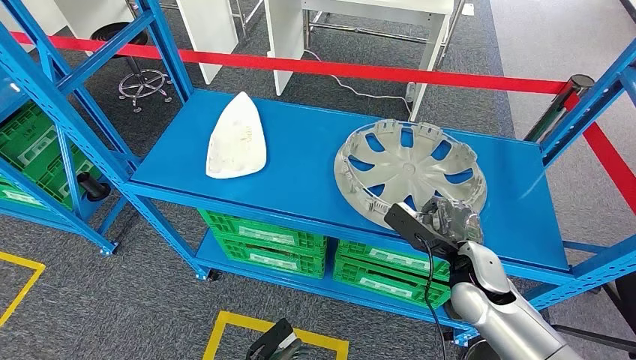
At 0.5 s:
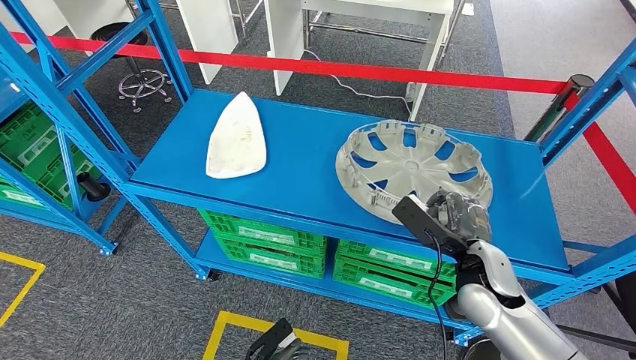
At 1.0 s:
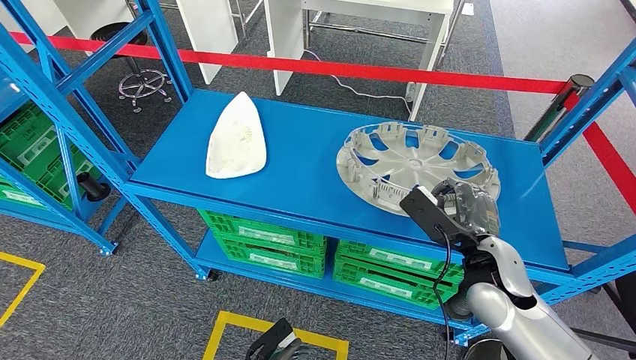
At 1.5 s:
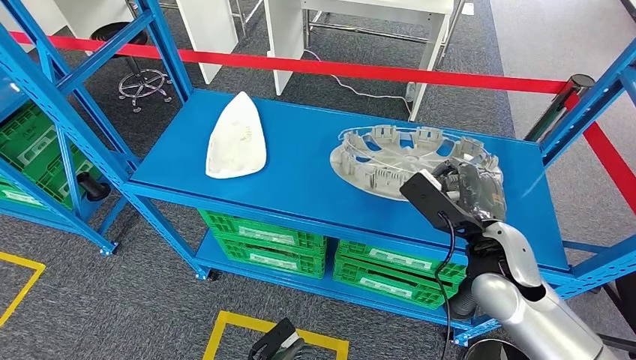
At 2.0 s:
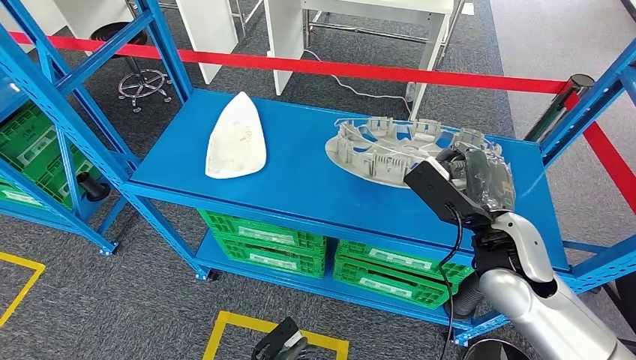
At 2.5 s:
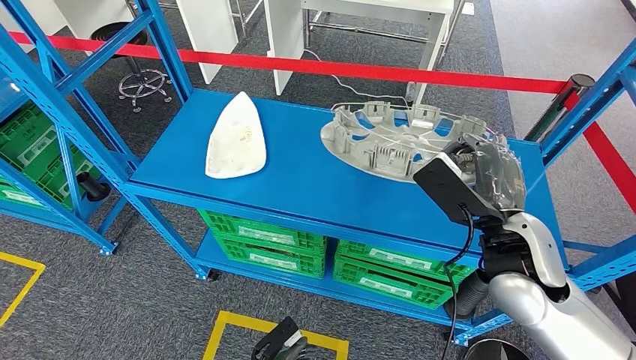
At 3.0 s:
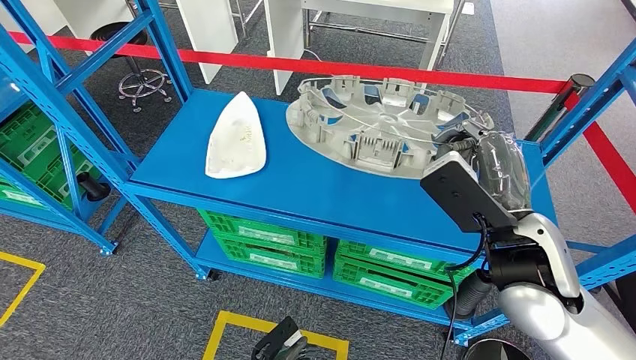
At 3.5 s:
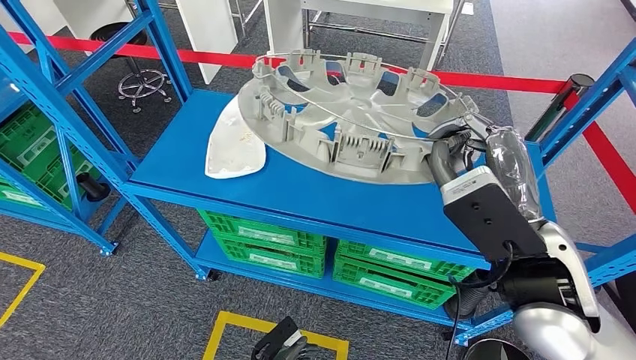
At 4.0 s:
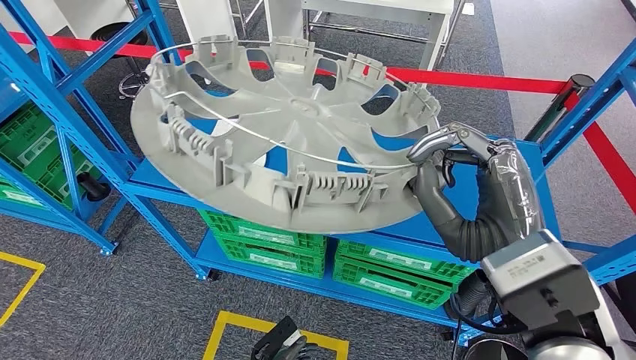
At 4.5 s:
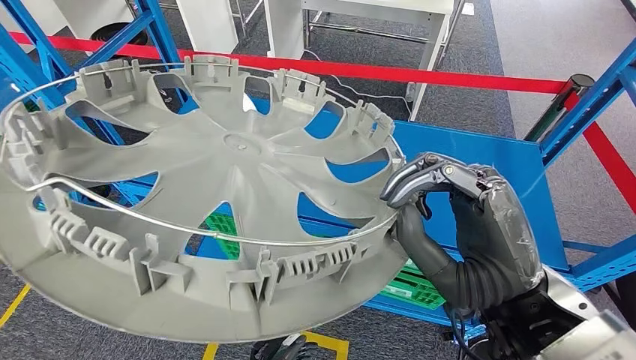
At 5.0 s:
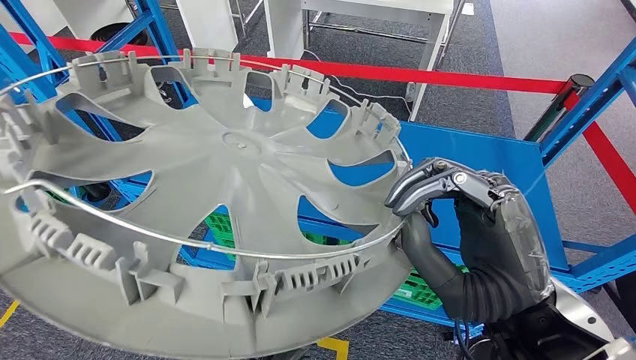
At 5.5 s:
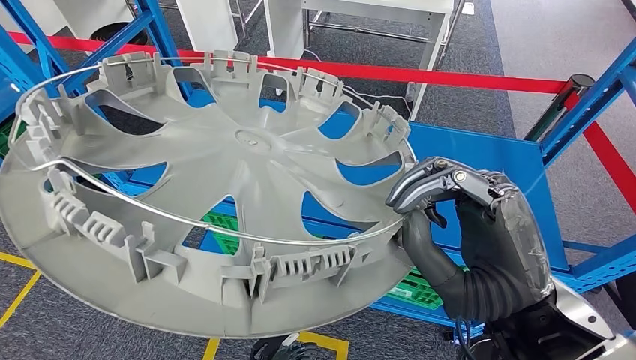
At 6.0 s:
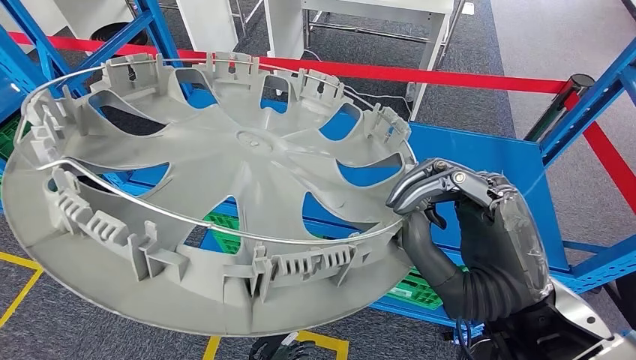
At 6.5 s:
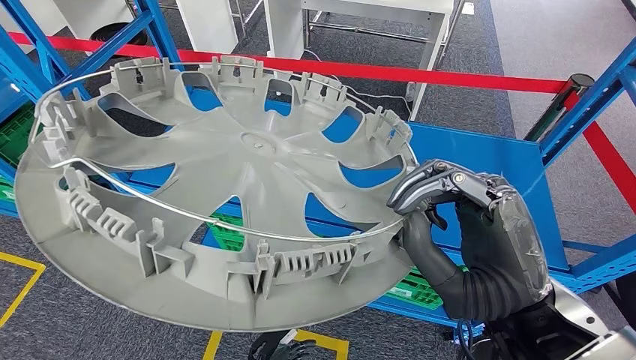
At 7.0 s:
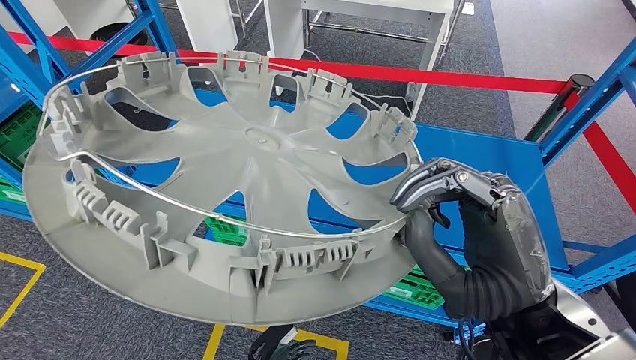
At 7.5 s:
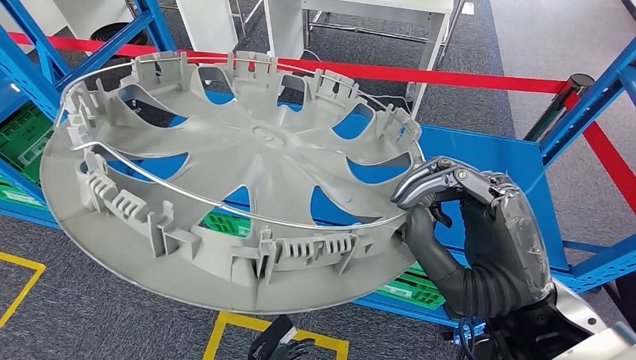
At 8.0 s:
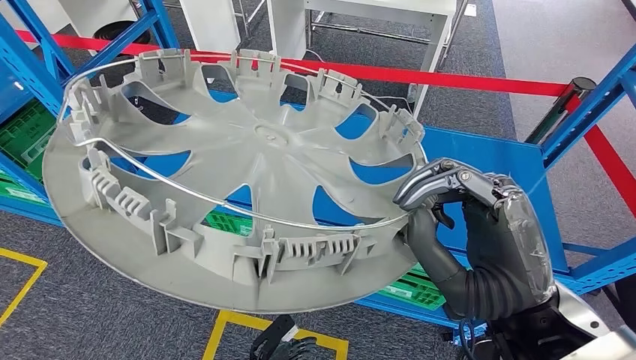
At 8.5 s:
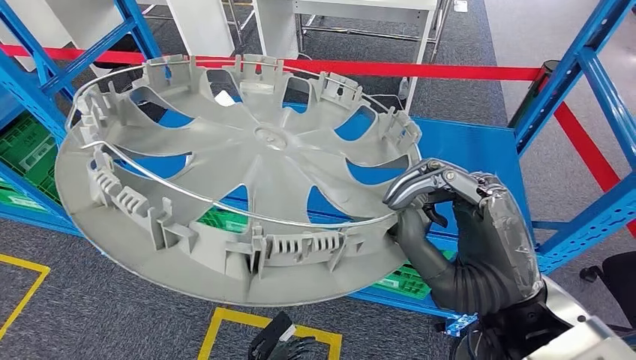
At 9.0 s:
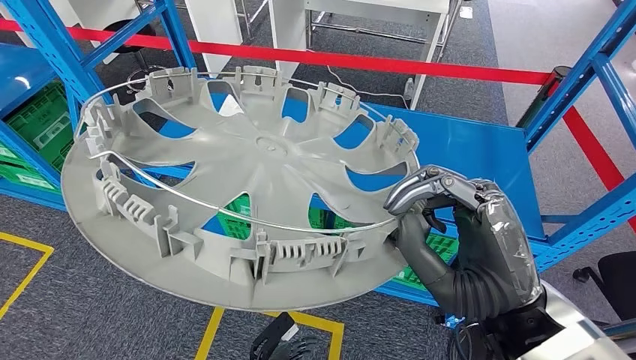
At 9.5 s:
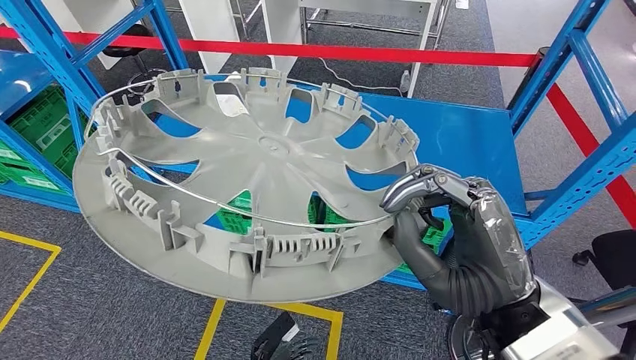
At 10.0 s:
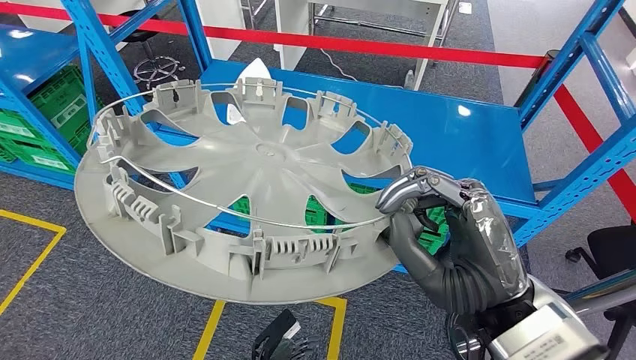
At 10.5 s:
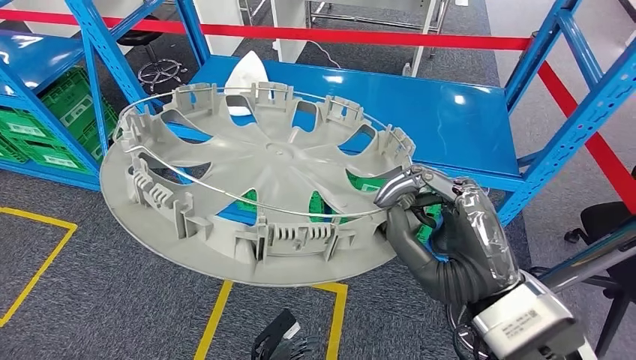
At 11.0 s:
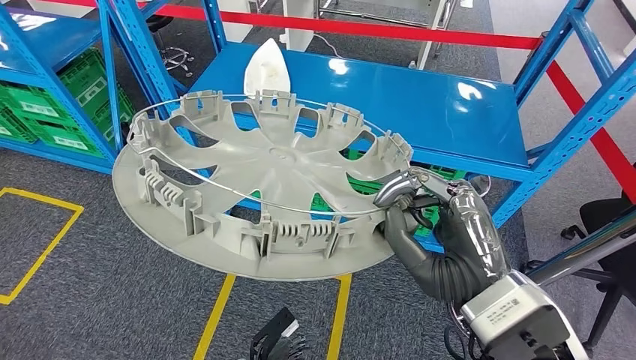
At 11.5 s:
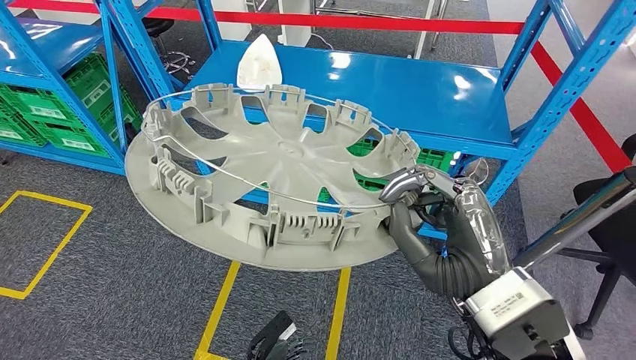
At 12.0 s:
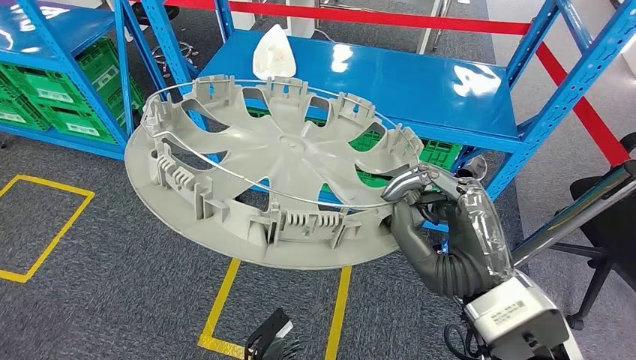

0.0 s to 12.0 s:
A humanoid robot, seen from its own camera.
Step, 0.0 to 2.5 s: Pick up the large material from the shelf.
0.0 to 2.0 s: The right hand shifts approximately 10 cm upward.

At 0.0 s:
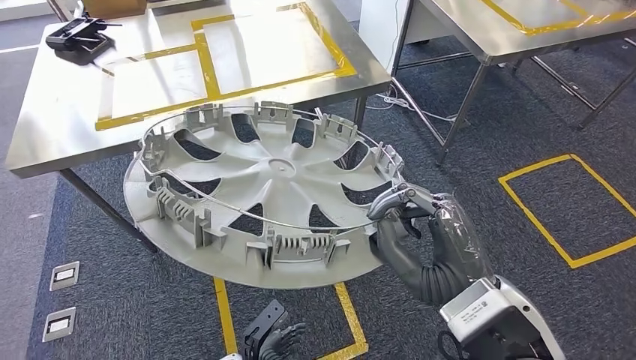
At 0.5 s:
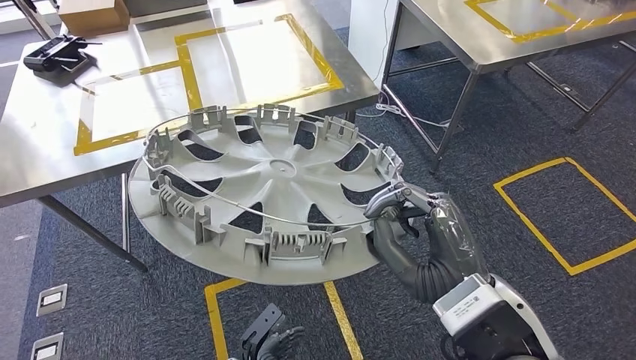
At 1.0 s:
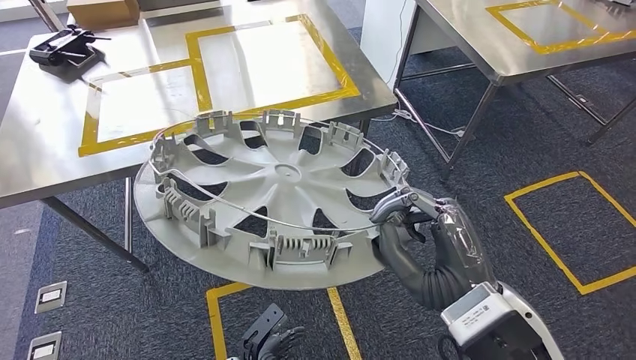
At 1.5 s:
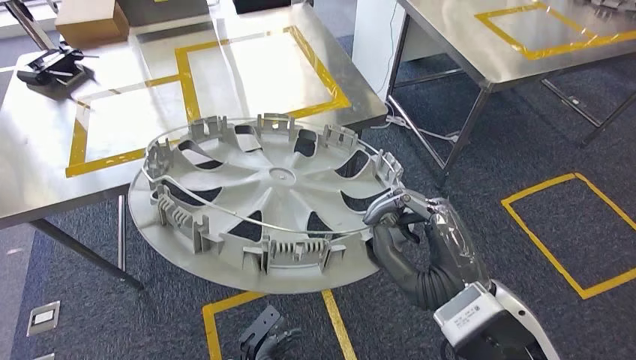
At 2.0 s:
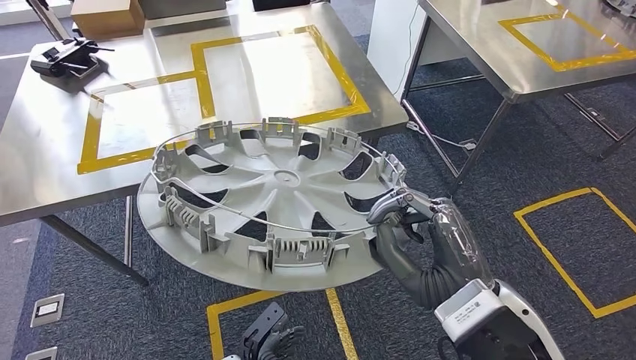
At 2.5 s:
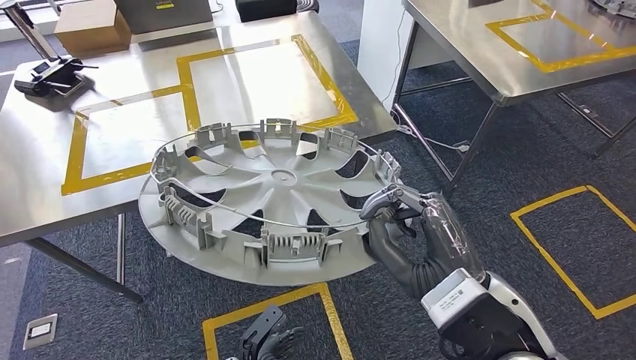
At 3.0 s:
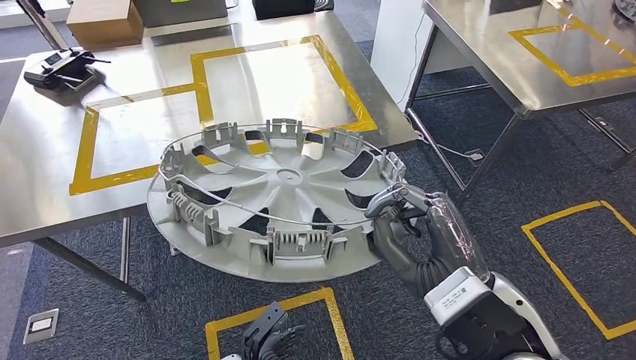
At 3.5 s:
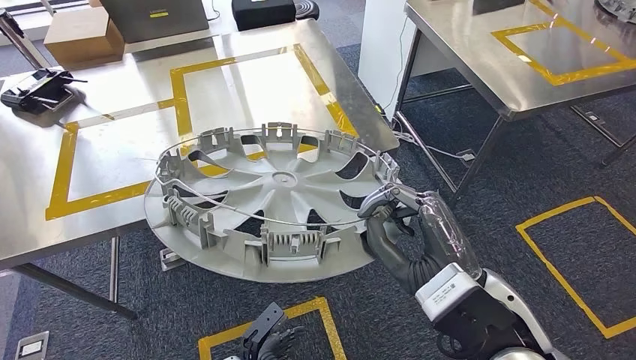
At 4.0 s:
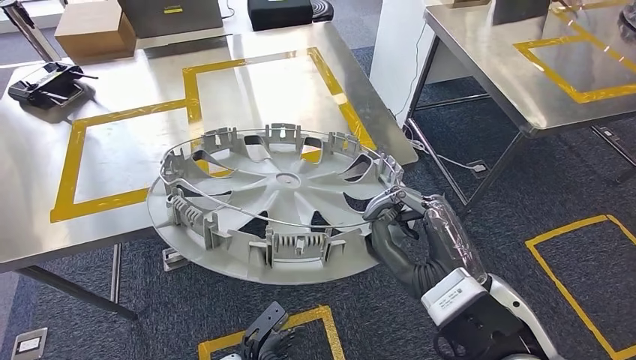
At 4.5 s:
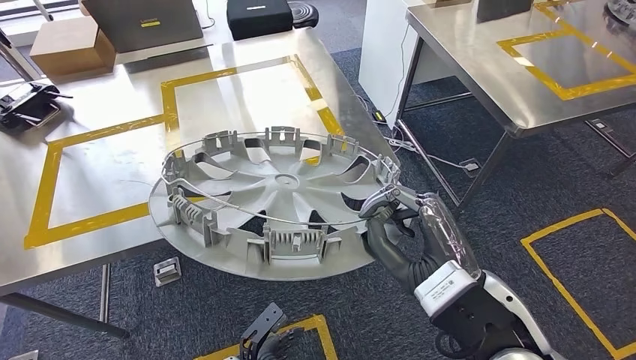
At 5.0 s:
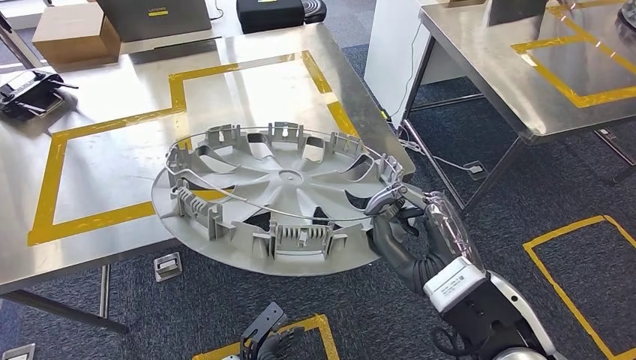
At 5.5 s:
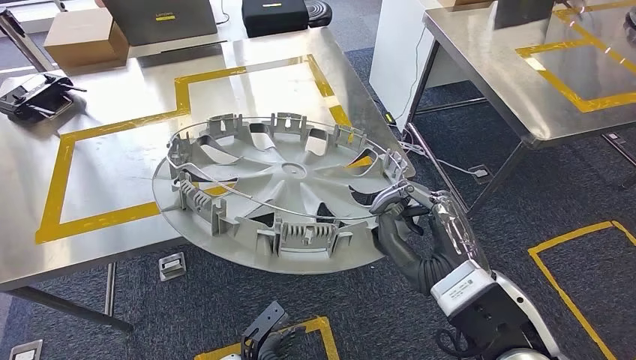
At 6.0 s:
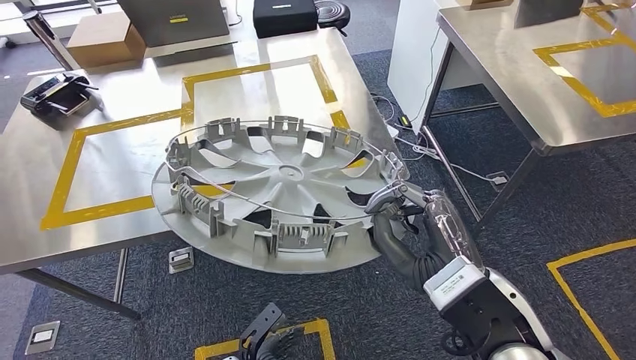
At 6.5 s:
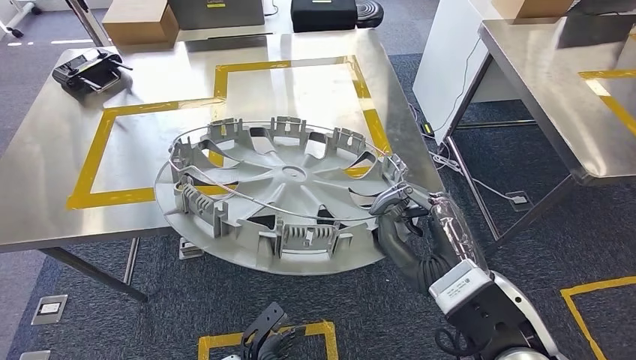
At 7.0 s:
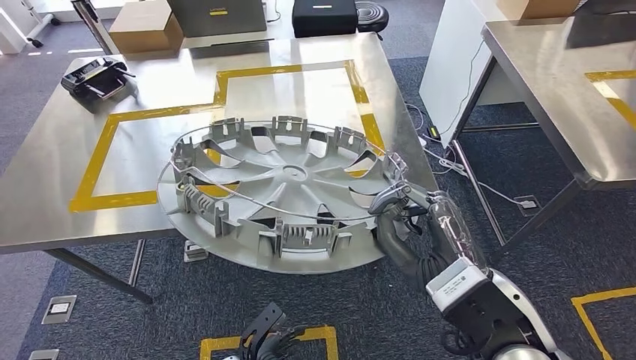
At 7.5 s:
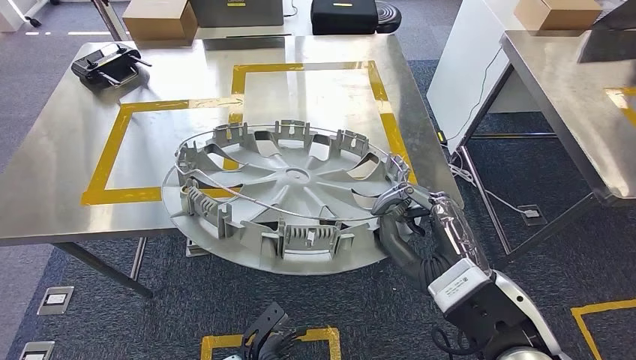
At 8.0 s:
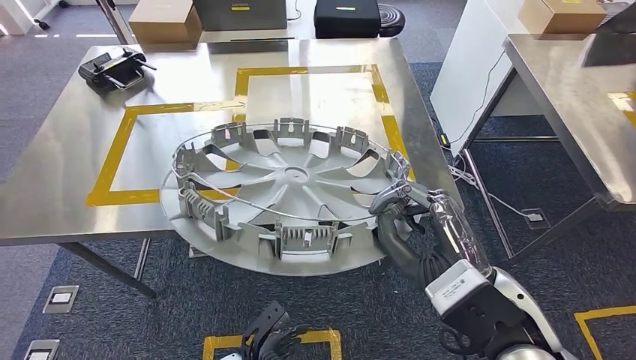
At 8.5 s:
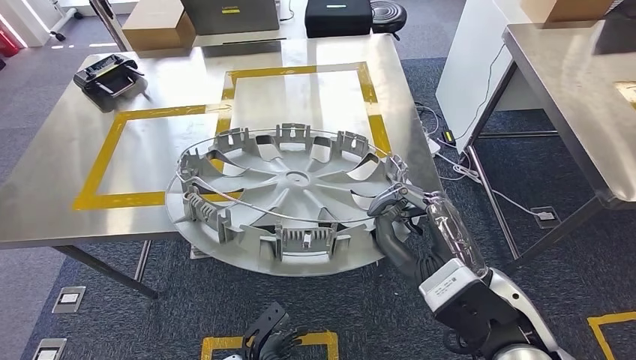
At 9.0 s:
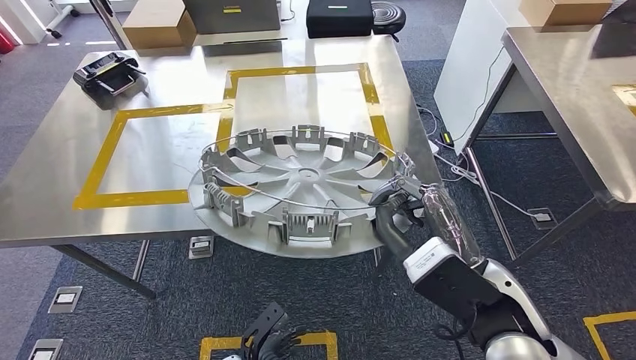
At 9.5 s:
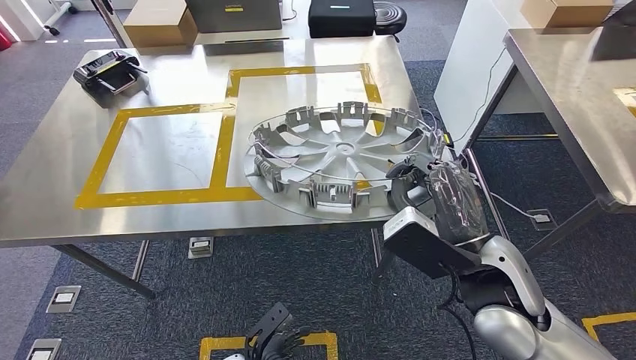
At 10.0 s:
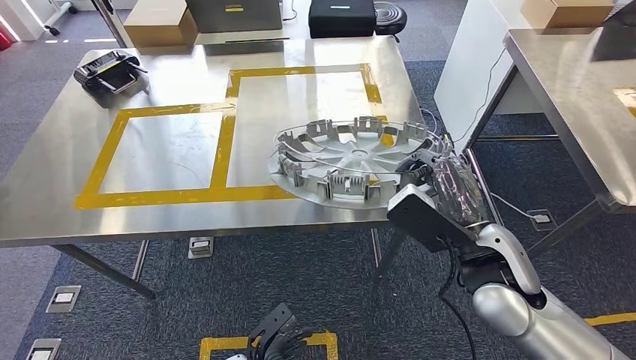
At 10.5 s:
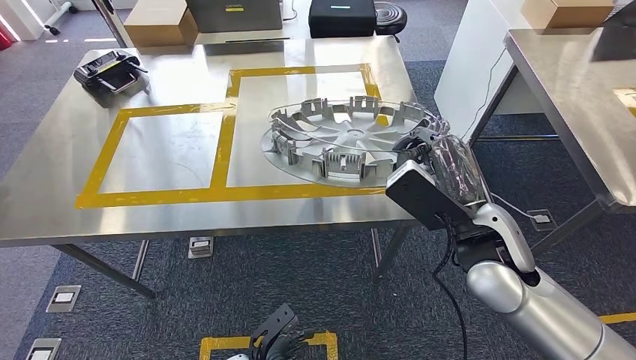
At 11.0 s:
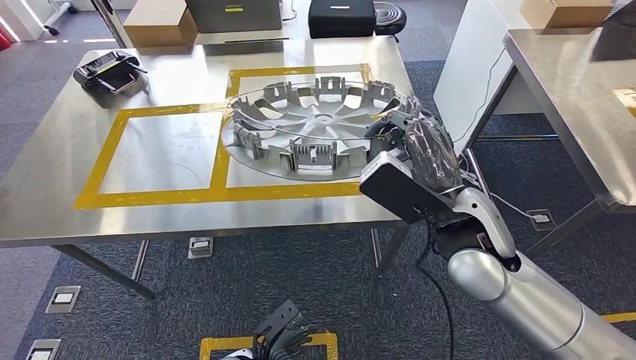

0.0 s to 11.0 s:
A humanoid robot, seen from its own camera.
Step, 0.0 to 4.0 s: Move the large material to the workbench.
